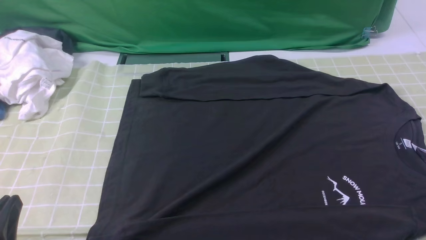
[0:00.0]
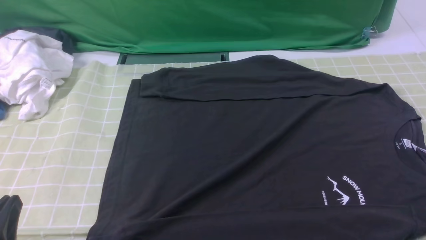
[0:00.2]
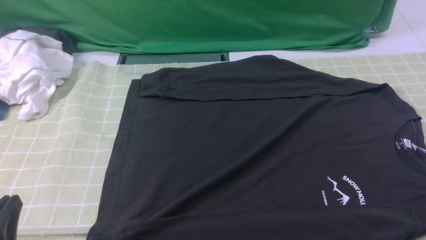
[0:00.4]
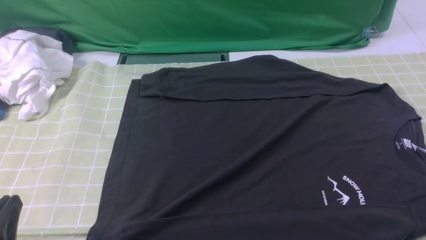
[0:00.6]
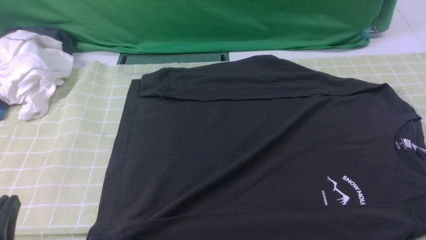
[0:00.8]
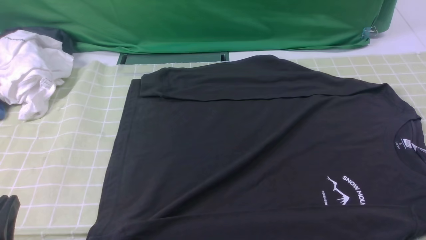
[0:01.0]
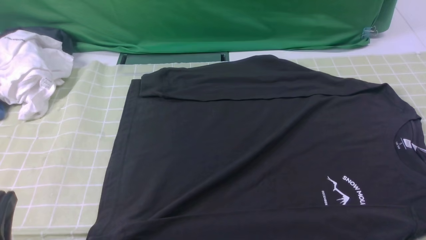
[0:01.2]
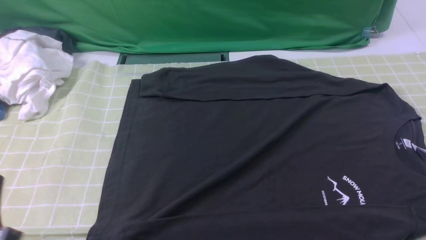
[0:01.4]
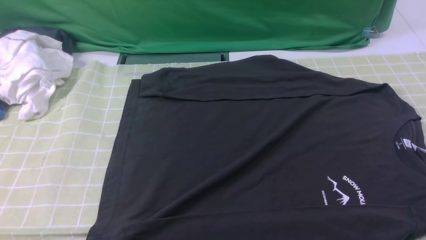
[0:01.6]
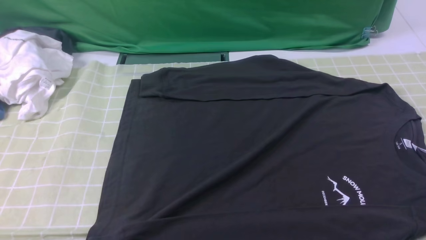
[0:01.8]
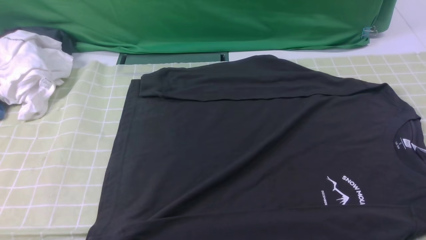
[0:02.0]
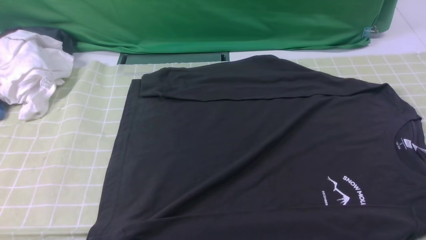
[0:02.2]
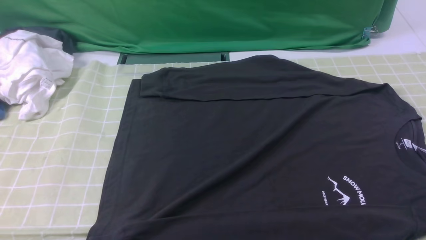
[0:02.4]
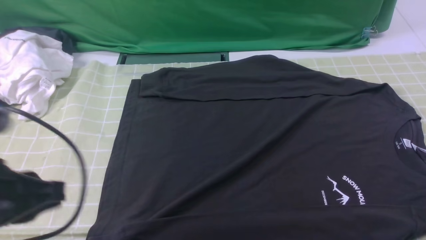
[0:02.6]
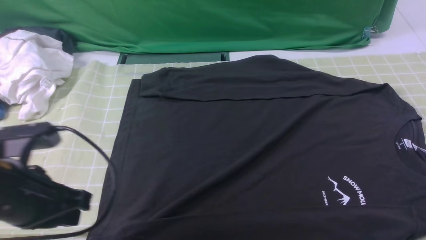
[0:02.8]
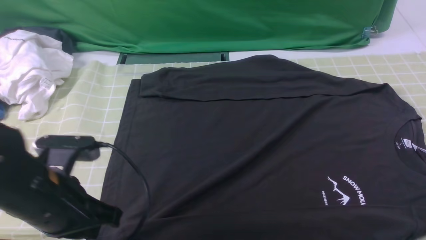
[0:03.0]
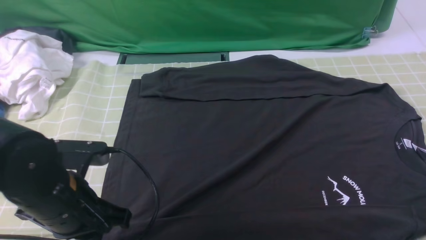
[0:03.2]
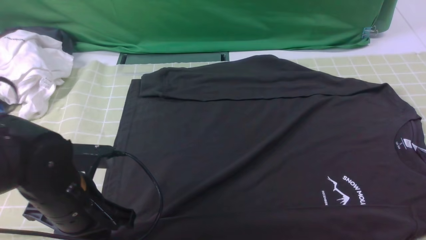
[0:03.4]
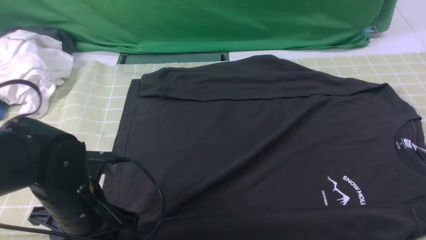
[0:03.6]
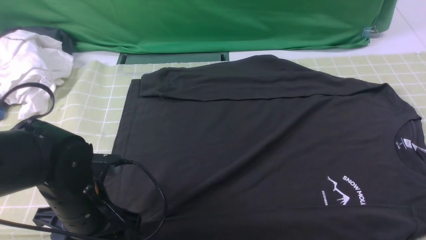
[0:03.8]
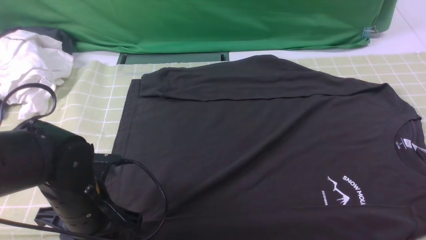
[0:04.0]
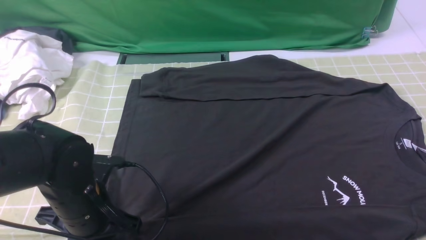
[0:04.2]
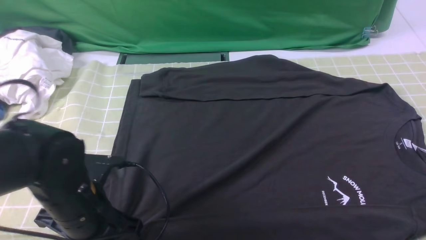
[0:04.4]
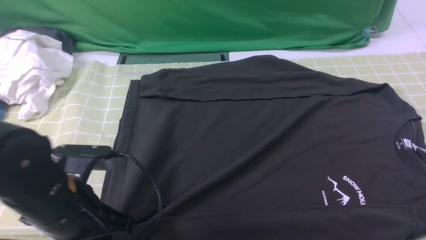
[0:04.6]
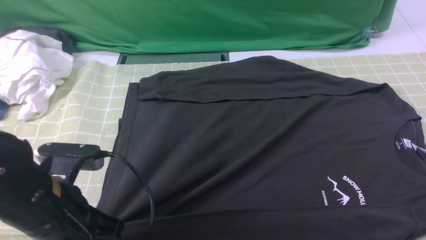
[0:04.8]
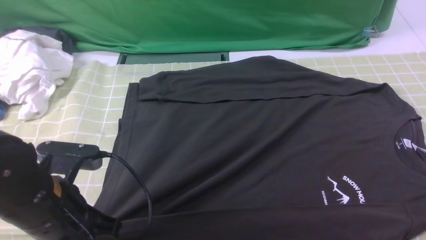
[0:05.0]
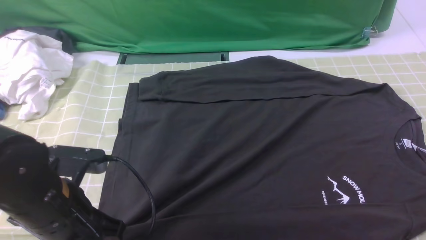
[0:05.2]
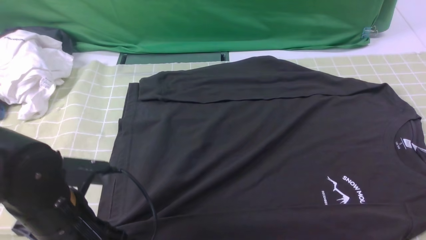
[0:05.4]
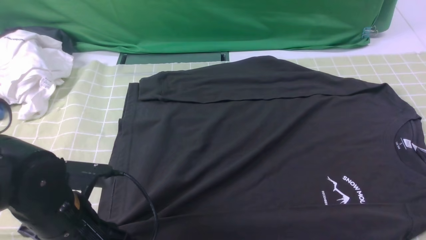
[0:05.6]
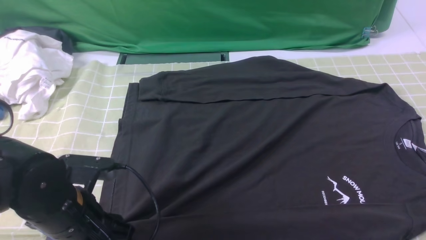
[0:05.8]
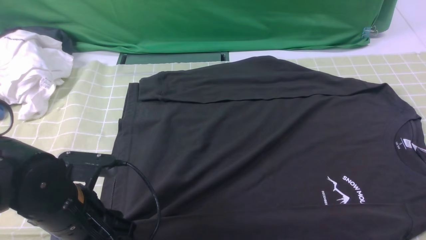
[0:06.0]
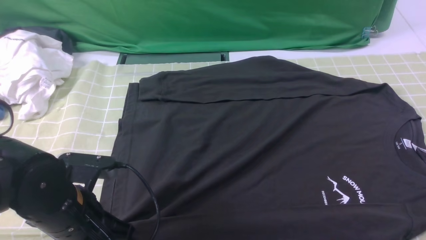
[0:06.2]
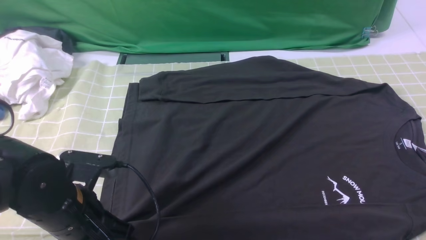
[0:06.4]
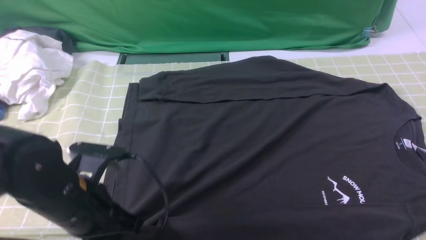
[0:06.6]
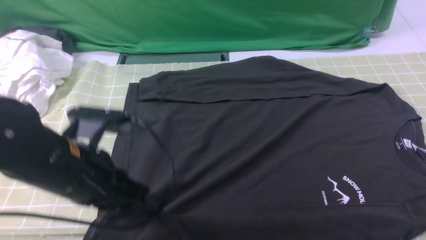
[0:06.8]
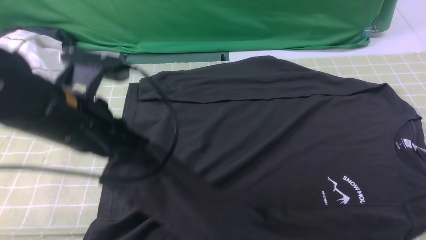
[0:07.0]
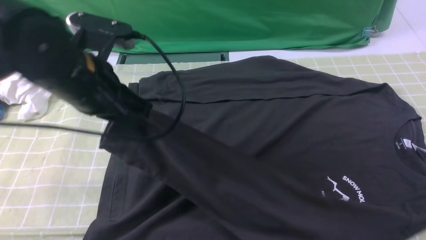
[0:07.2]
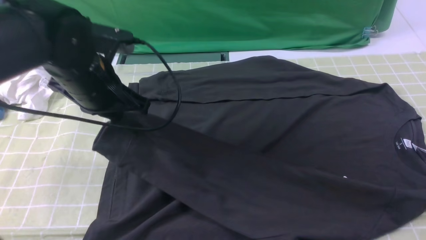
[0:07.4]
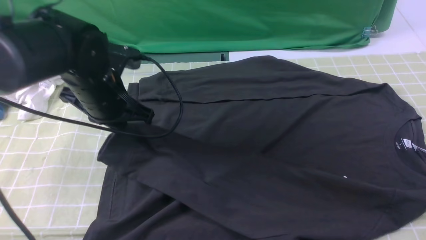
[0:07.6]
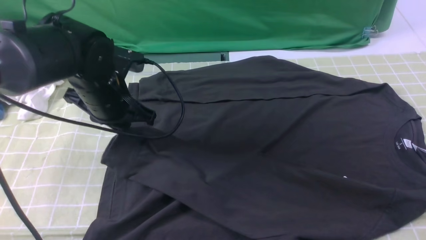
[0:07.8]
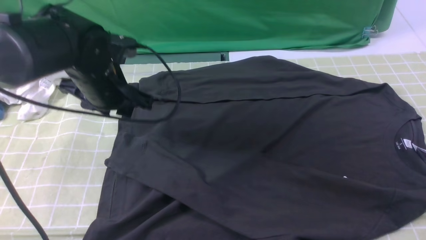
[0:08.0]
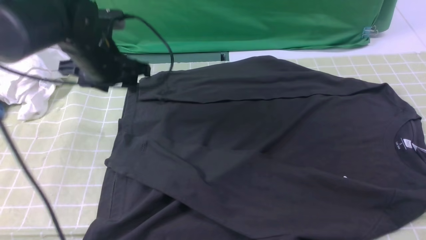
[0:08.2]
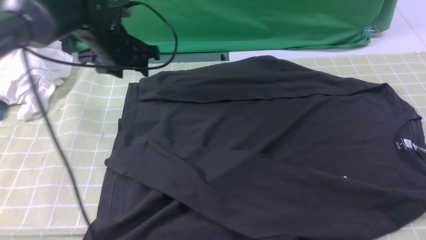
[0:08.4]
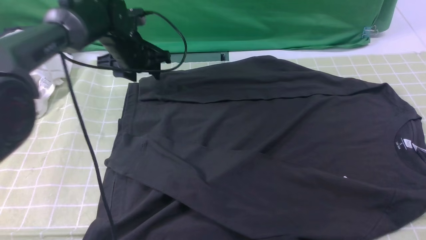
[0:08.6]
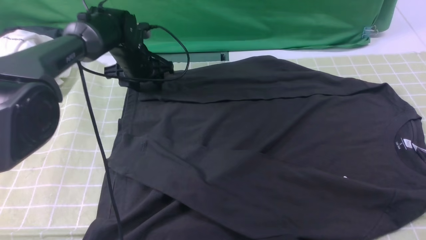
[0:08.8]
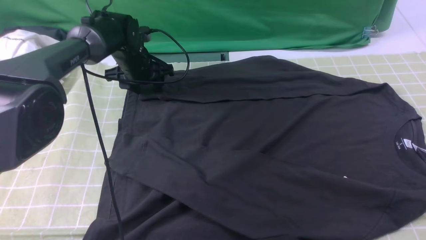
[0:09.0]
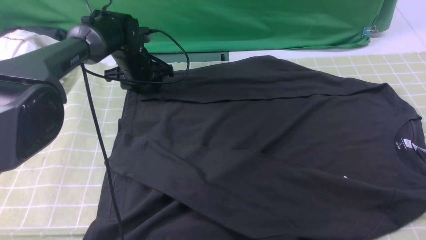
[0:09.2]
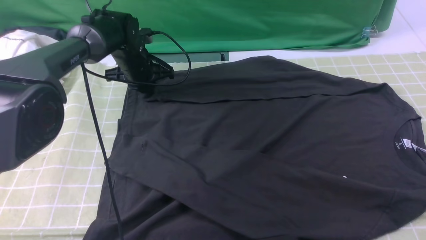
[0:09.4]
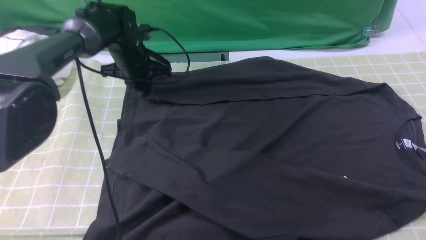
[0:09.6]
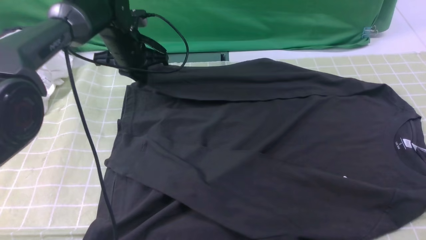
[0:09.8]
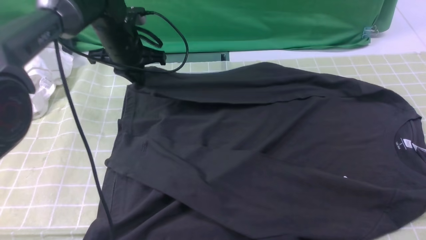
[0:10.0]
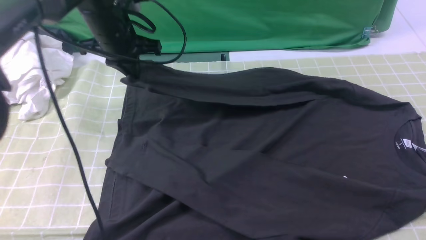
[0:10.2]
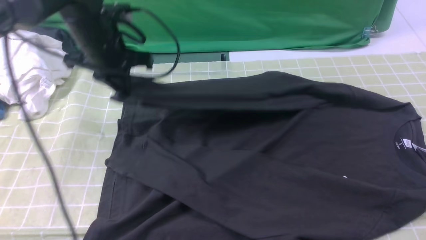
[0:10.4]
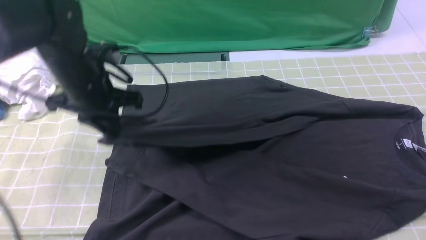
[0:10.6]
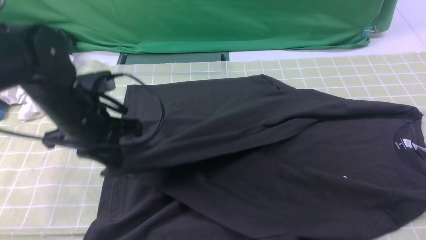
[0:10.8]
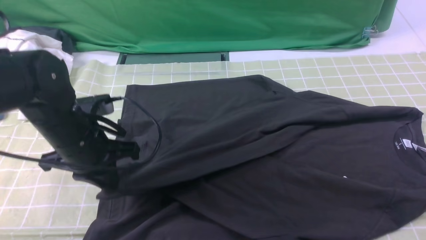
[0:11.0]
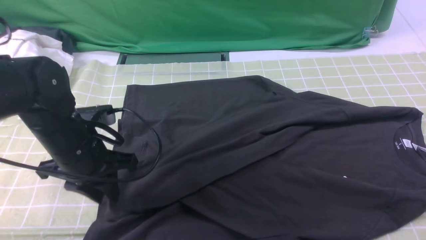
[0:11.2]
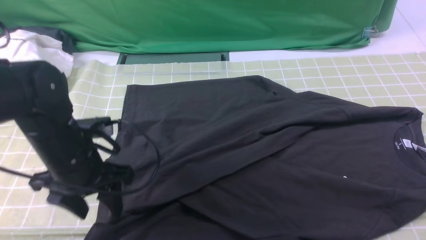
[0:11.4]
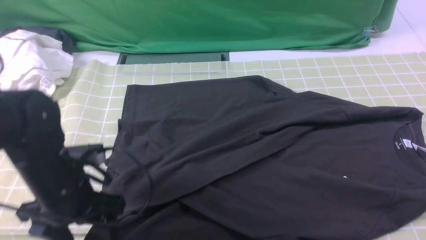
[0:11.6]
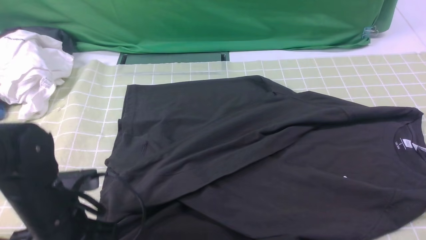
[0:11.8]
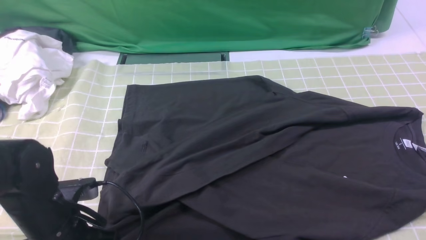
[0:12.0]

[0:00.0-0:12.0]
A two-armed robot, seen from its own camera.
Step, 0:00.0 to 0:06.4: use the left arm to clamp the cuff closest to it.
Step, 0:06.6 to 0:07.8: use the left arm to drag and place the cuff at the centered position on the left edge of the fabric.
Step, 0:08.0 to 0:09.4: use the left arm to clamp the cuff farthest from it.
Step, 0:09.6 to 0:11.2: use the left arm to drag and drop the cuff onto the cuff closest to the left arm.
0:01.6 to 0:03.0: The left gripper shifts some 15 cm forward and to the right.
0:03.0 to 0:04.4: The left gripper opens, then closes again.
0:04.4 to 0:06.0: The left gripper opens its fingers.
0:06.0 to 0:07.6: The left gripper is displaced forward by approximately 15 cm, and closes.
0:07.6 to 0:09.0: The left gripper goes some 20 cm forward and downward, and opens its fingers.
0:09.0 to 0:10.4: The left gripper goes some 15 cm backward and upward, and closes its fingers.
0:10.4 to 0:12.0: The left gripper shifts some 25 cm backward and downward, and opens.

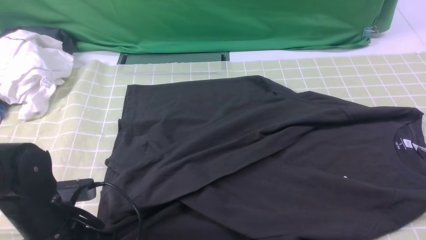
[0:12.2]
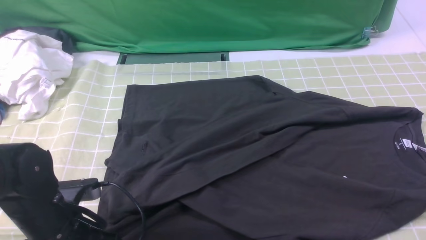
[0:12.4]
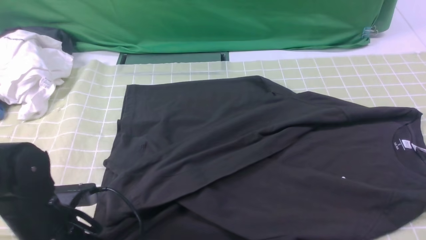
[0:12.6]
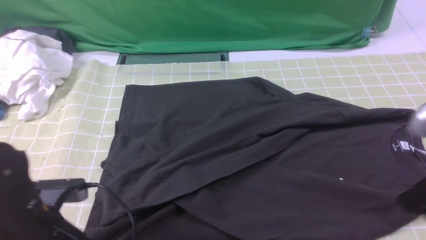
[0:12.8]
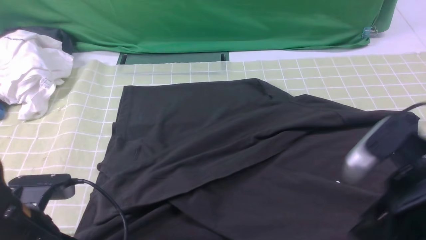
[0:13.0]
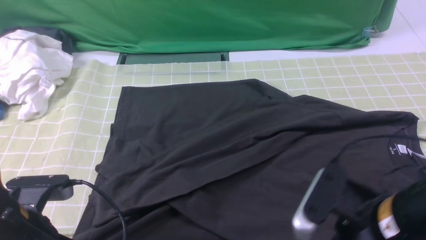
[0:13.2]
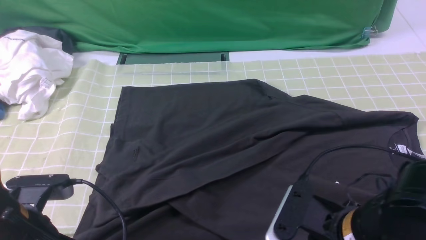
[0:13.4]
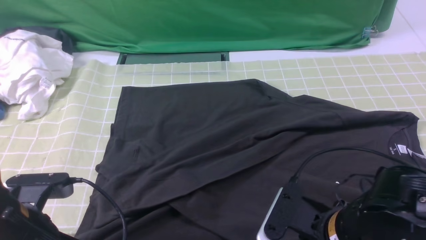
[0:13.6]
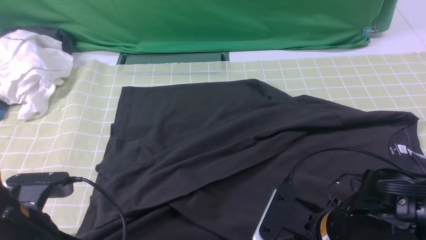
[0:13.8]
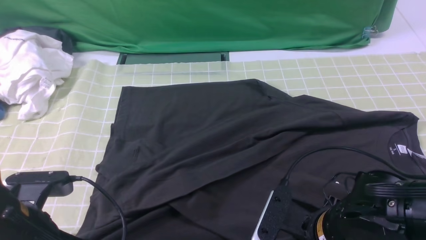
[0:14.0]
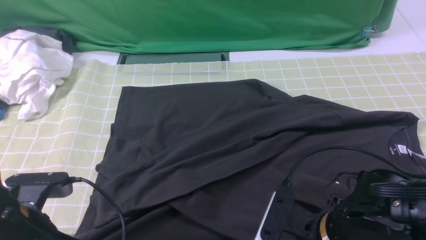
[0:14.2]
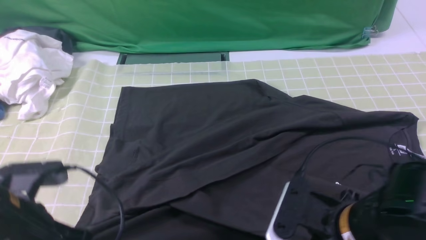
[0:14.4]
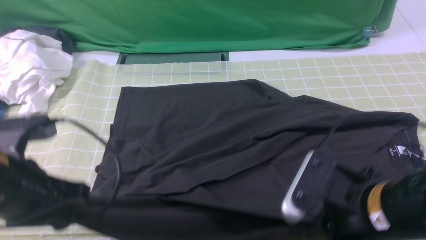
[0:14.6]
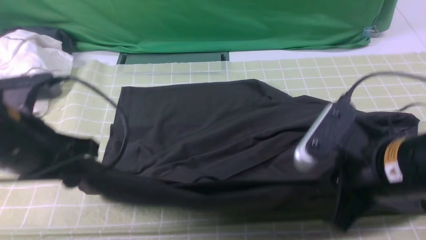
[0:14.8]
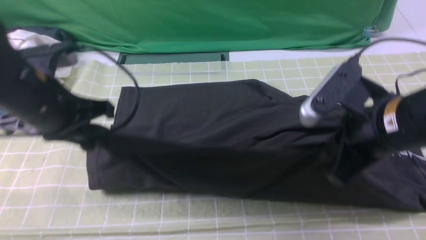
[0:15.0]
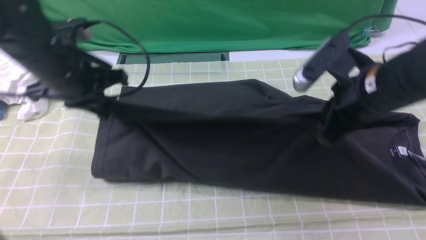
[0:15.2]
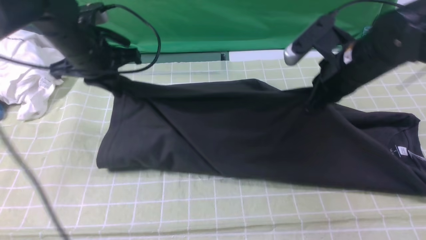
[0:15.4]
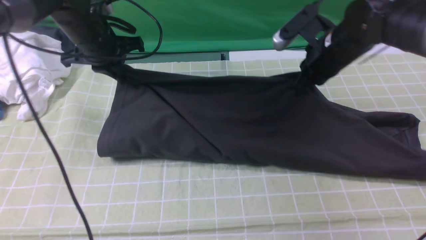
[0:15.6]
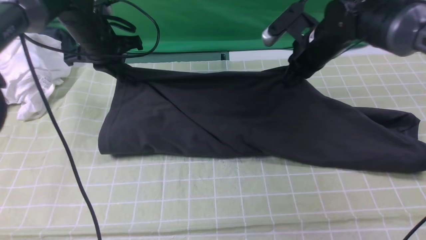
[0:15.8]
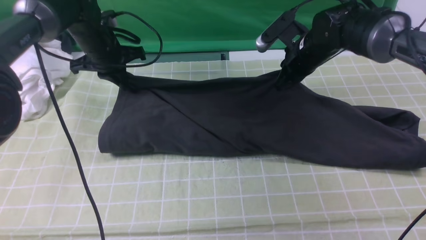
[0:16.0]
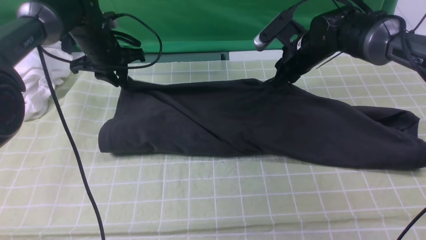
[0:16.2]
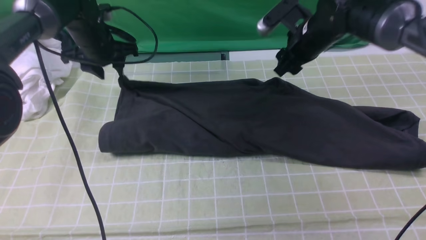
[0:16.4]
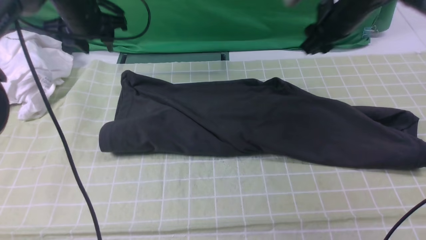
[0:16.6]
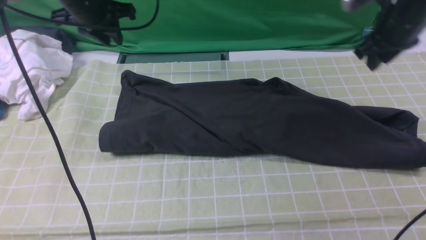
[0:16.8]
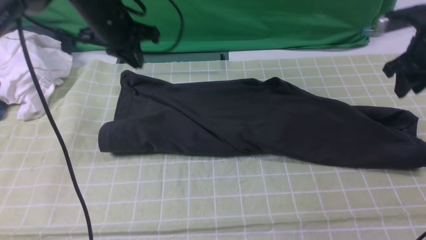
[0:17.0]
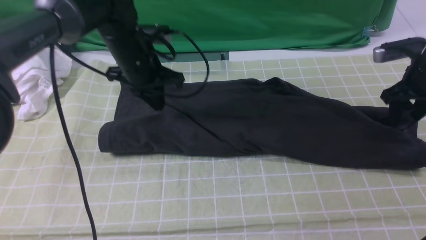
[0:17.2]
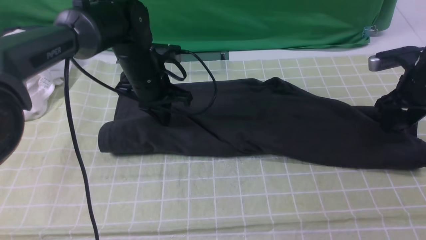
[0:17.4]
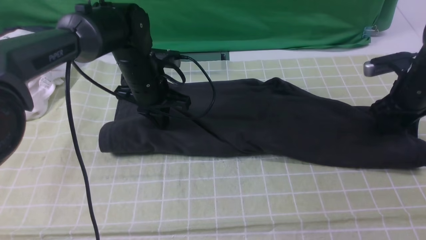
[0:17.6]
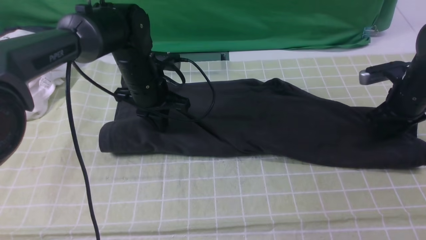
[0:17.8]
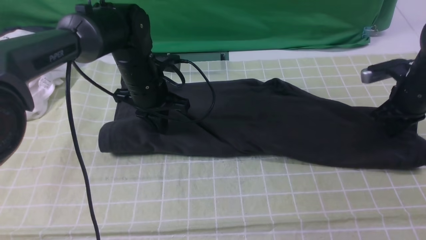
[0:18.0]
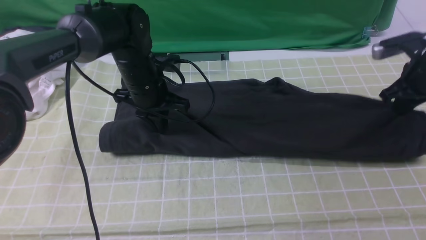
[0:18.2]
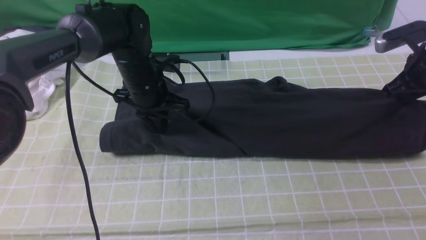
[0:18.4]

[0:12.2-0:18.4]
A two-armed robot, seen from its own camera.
Step, 0:12.2 to 0:14.0: use both arms simultaneously to clamp the lower edge of the clothing fabric.
Step, 0:14.4 to 0:16.4: use both arms to drag the lower edge of the fabric forward and fold it over the upper edge.
0:12.2 to 0:13.8: The left gripper heads upward, covering roughly 5 cm, and closes its fingers, while the right gripper shifts roughly 20 cm to the left and downward.
0:13.8 to 0:15.4: The left gripper is displaced forward by approximately 25 cm; the right gripper is displaced forward and upward by roughly 25 cm, and closes.
0:15.4 to 0:16.8: The left gripper heads forward, covering about 5 cm, and opens, then closes once more; the right gripper goes roughly 15 cm to the right and forward, and opens up.
0:16.8 to 0:18.4: The left gripper is displaced downward, to the right and backward by about 15 cm. The right gripper moves downward and to the right, about 10 cm, and closes its fingers.
